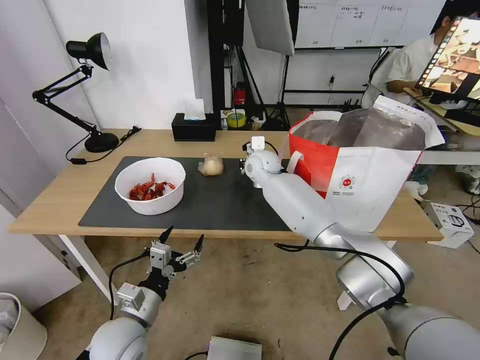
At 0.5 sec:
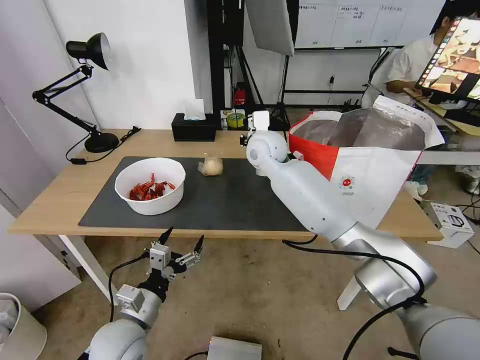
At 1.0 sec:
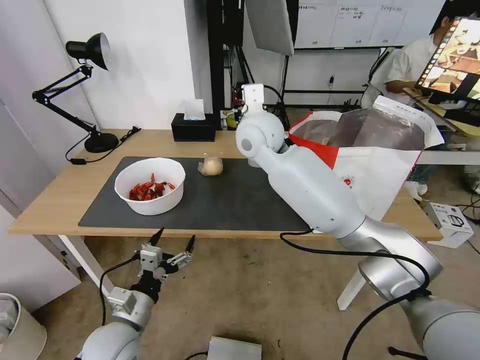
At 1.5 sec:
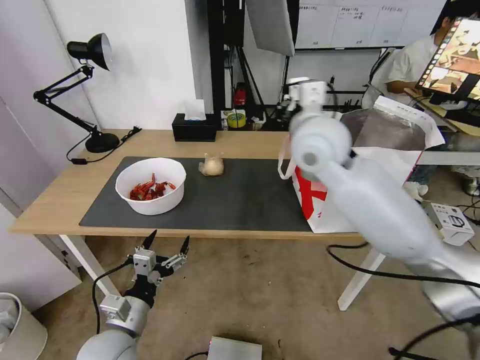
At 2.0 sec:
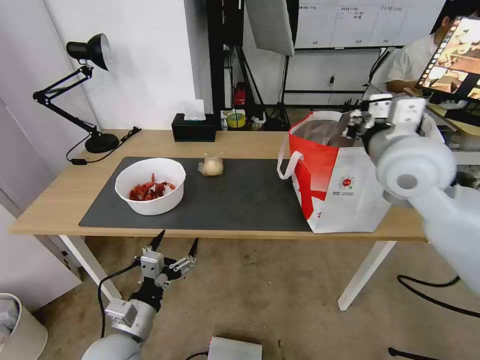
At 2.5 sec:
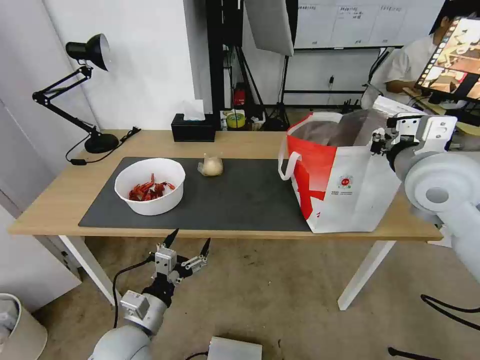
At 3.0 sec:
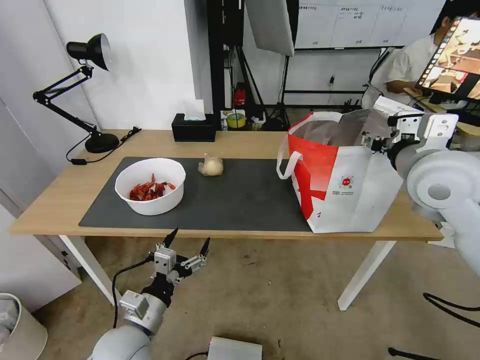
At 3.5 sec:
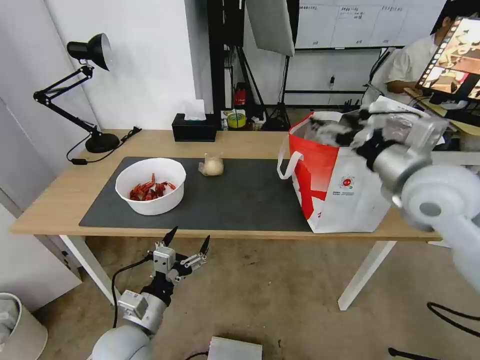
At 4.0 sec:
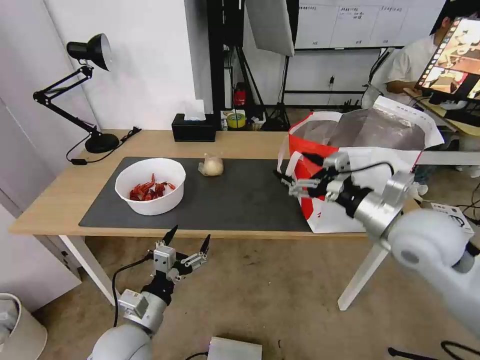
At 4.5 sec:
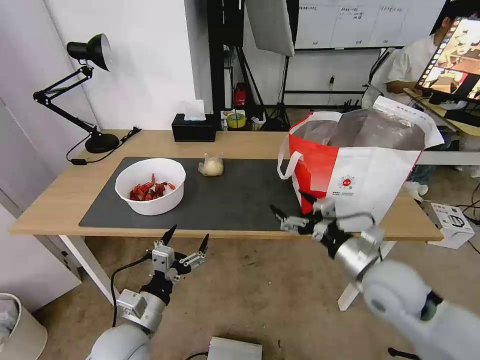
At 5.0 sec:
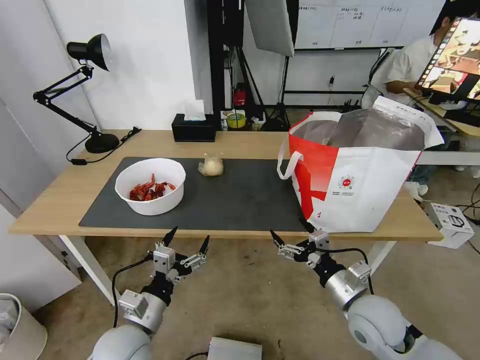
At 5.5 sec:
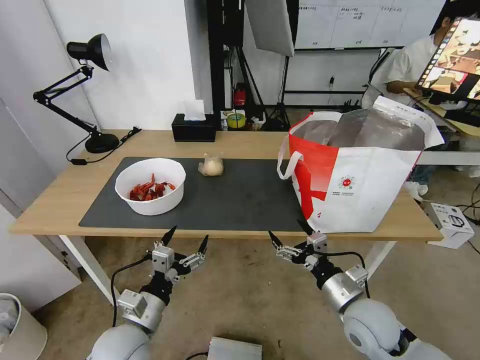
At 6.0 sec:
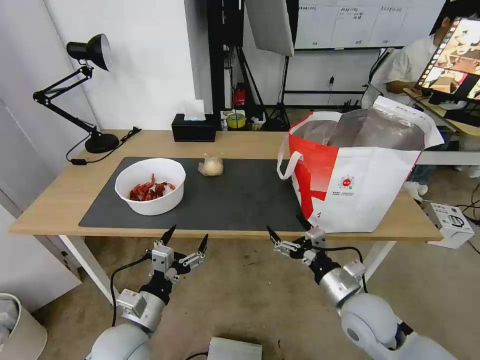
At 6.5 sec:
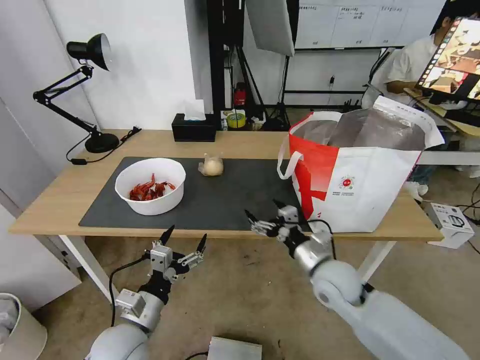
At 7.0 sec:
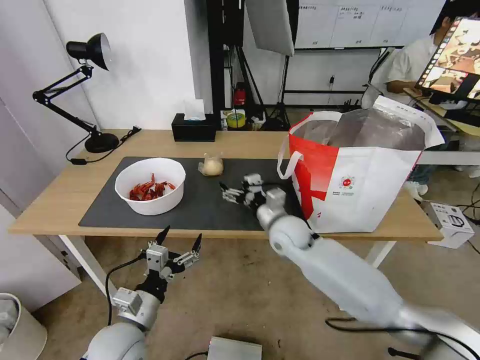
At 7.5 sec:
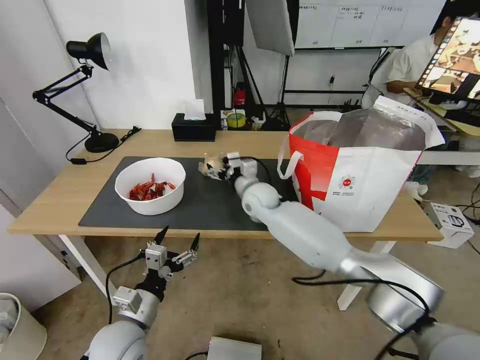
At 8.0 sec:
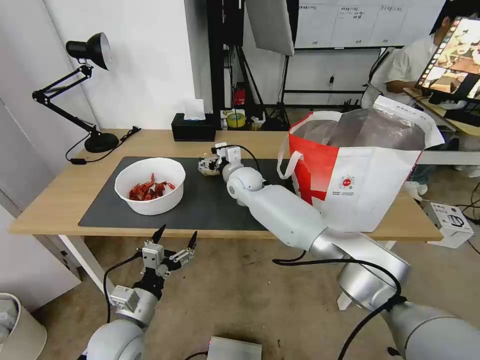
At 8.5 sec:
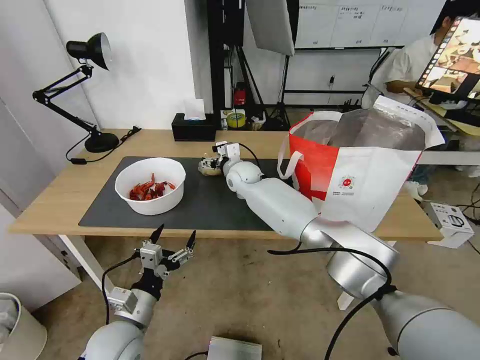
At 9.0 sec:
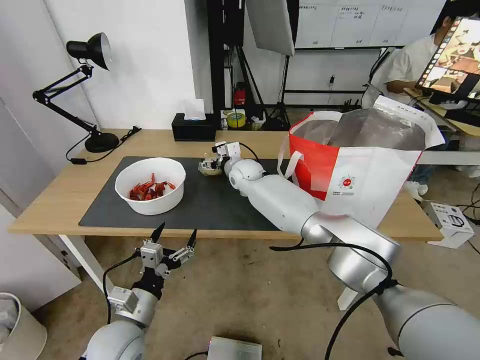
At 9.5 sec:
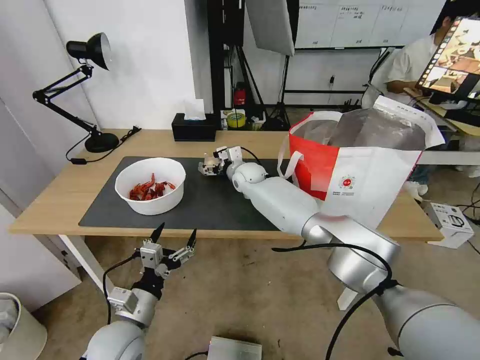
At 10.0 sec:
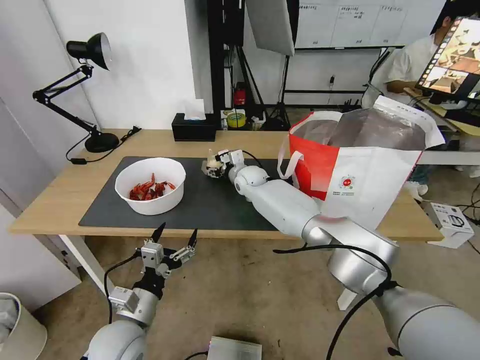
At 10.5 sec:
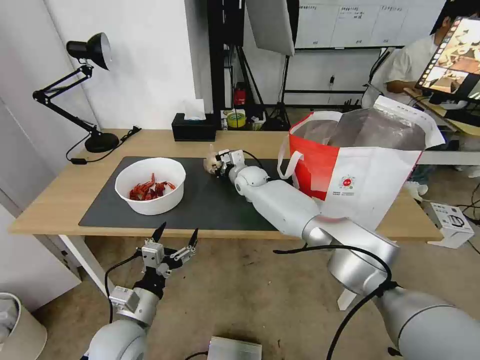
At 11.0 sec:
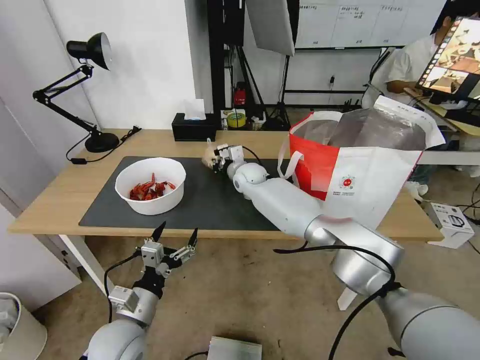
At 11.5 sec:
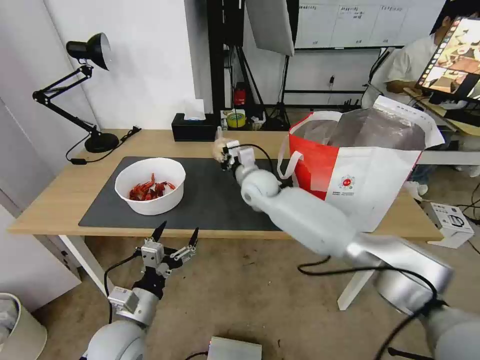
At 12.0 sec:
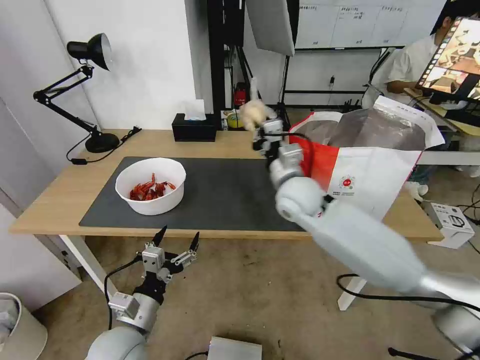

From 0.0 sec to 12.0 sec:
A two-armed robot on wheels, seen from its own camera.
Task of the whole recording: Pick up the trash from the table and place it into the takeout bag.
From 0.0 sec to 2.0 sec: The right gripper is displaced backward, to the right and upward by some 35 cm.
From 2.0 sec to 4.0 sec: The right gripper goes some 10 cm downward and backward, and opens up.
From 4.0 sec to 6.0 sec: The right gripper travels downward by approximately 20 cm.
From 6.0 sec to 8.0 sec: The right gripper travels forward and to the left by some 40 cm.
From 8.0 sec to 10.0 sec: The right gripper ends up roughly 5 cm from where it was.
From 10.0 sec to 12.0 sec: The right gripper shifts approximately 20 cm backward, upward and to the right, and closes up.

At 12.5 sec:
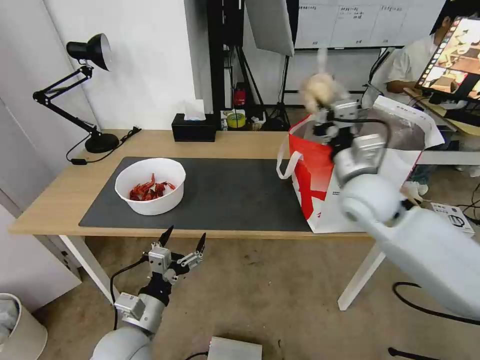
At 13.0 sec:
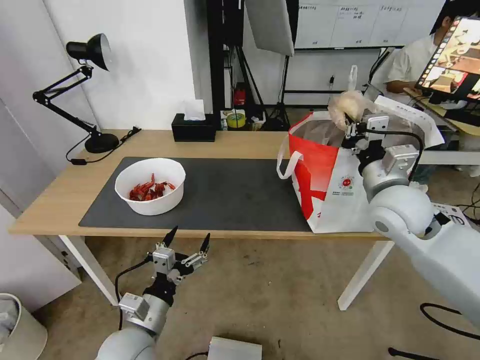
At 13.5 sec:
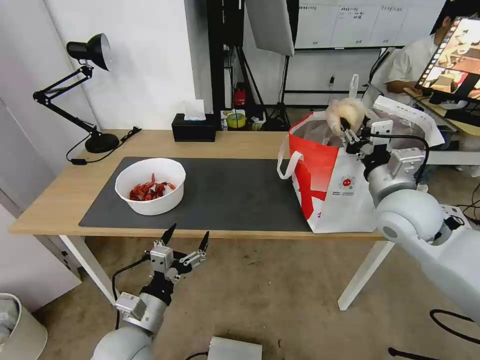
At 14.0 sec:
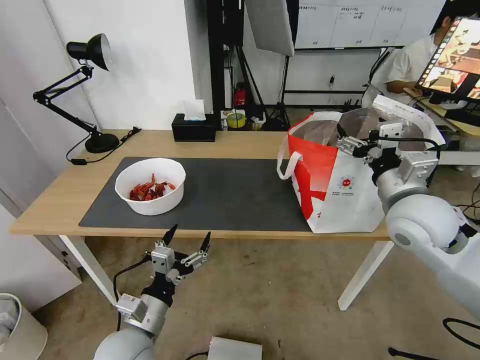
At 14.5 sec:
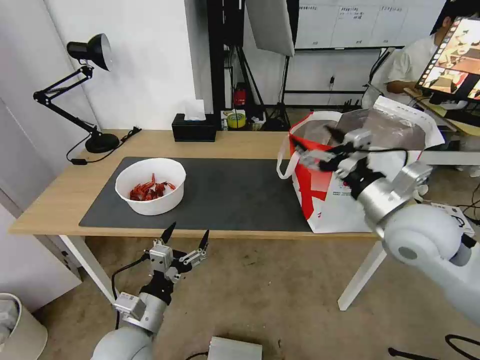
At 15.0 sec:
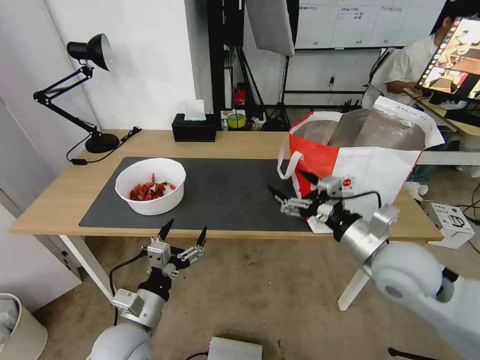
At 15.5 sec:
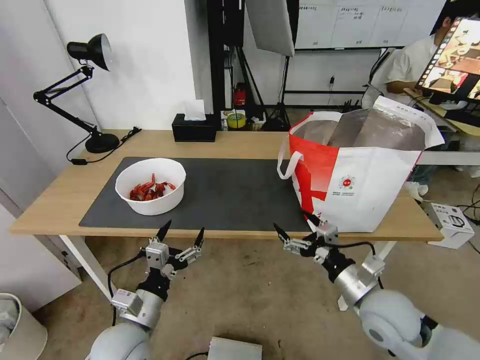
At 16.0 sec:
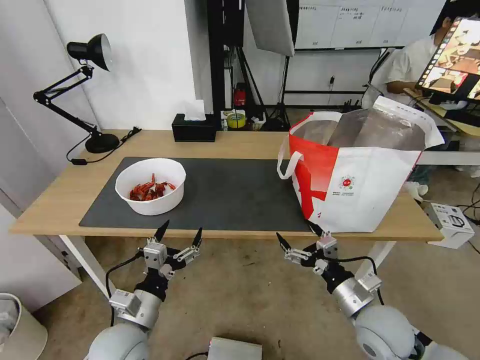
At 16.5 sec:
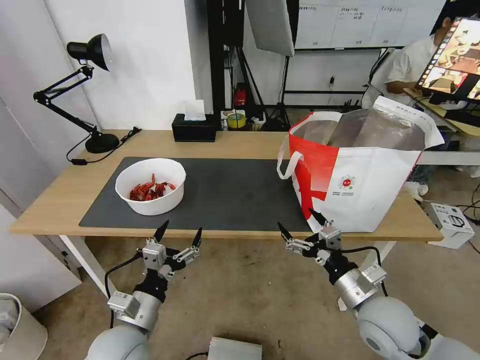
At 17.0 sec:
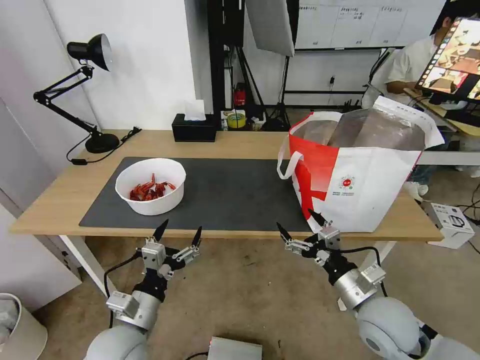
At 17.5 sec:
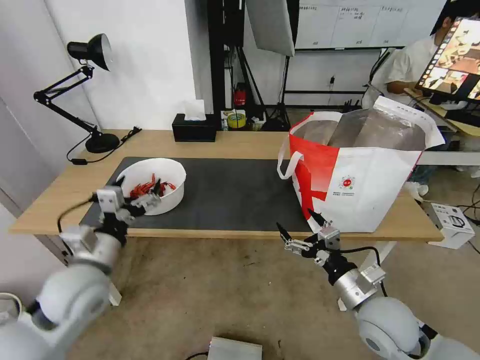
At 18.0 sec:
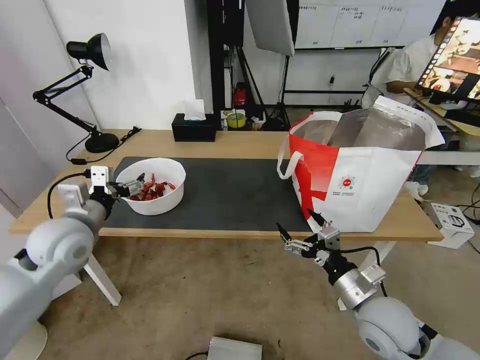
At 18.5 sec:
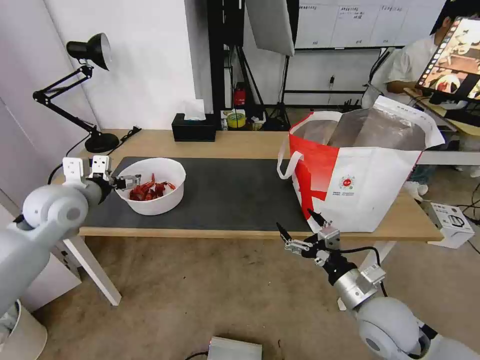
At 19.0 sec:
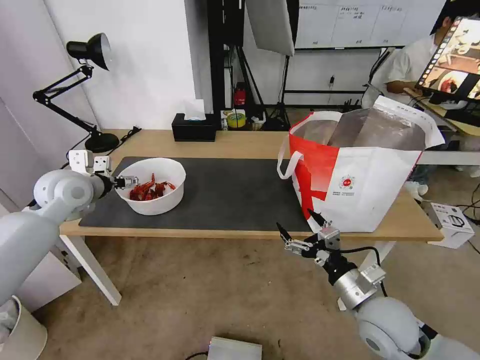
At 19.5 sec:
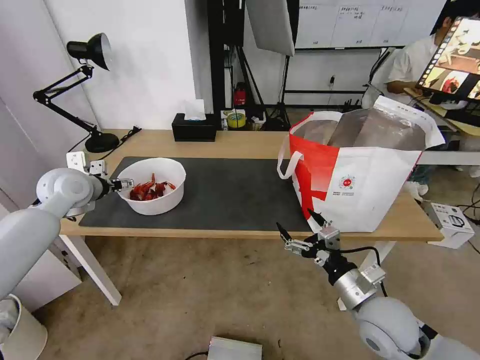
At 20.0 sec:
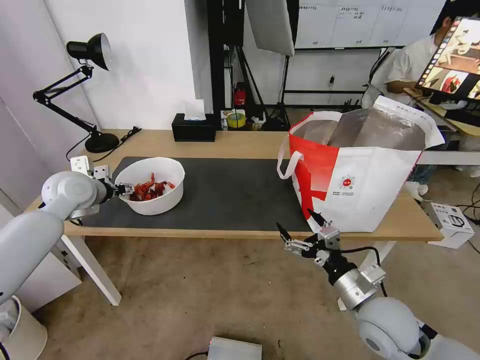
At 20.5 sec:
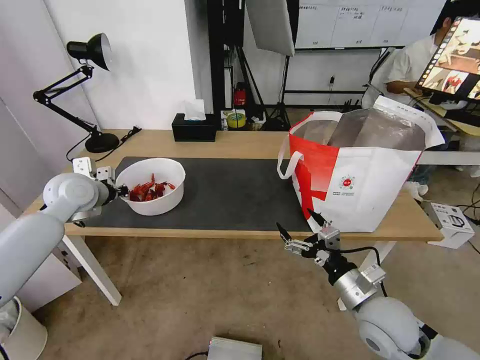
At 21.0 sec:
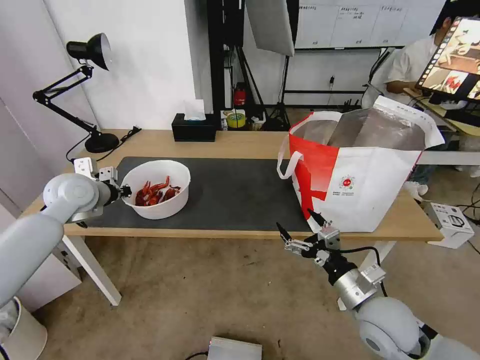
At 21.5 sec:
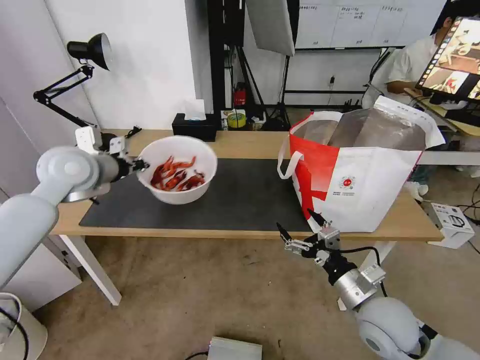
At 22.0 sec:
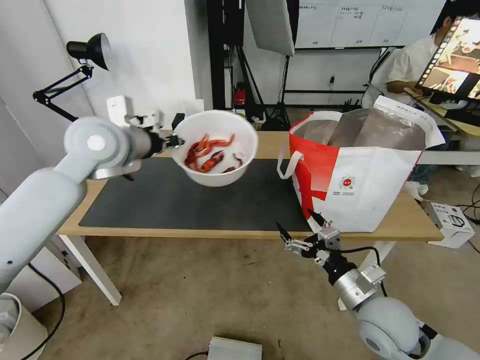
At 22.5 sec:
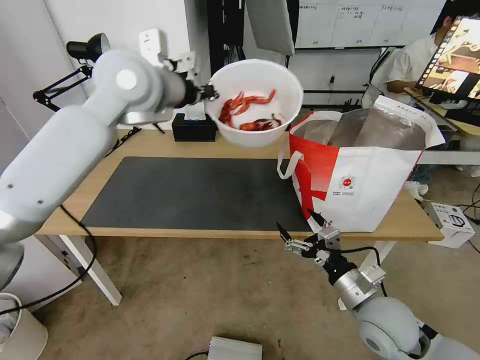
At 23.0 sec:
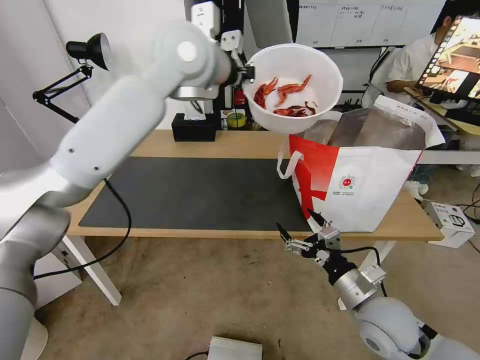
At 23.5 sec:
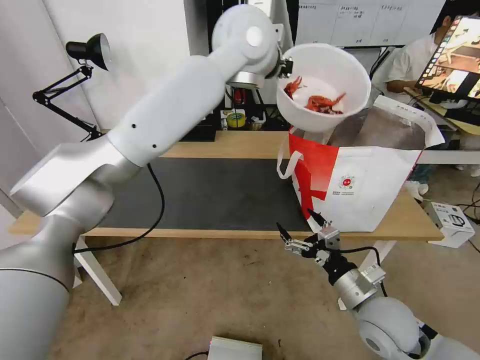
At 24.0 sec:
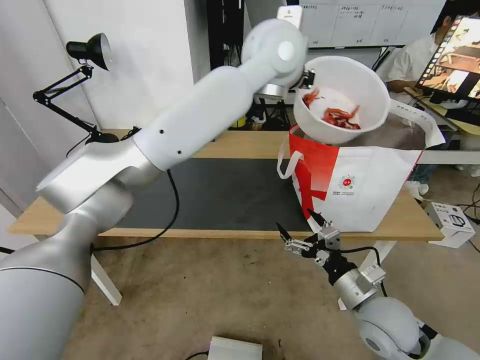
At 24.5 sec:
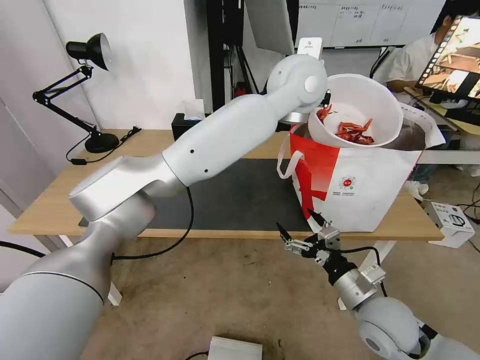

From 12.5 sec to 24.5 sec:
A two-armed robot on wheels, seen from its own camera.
Task of the whole recording: Pick up the trash from the table and place it into the takeout bag.
From 12.5 sec to 14.5 sec: The right gripper travels backward and to the right by some 10 cm, and opens up.
From 14.5 sec to 16.5 sec: The right gripper travels downward and backward by some 20 cm.
From 16.5 sec to 18.5 sec: The left gripper shifts some 30 cm forward, upward and to the left.
From 18.5 sec to 20.5 sec: The left gripper goes roughly 5 cm forward, and closes its fingers.
From 20.5 sec to 22.5 sec: The left gripper heads upward and to the right, covering about 30 cm.
From 22.5 sec to 24.5 sec: The left gripper heads to the right, covering roughly 25 cm.

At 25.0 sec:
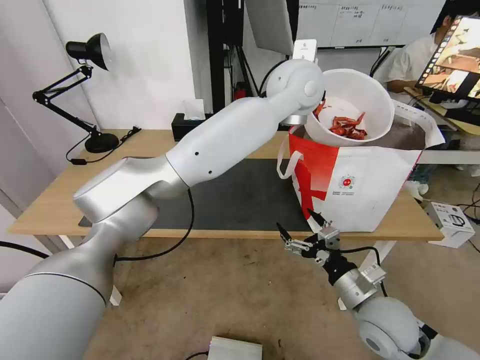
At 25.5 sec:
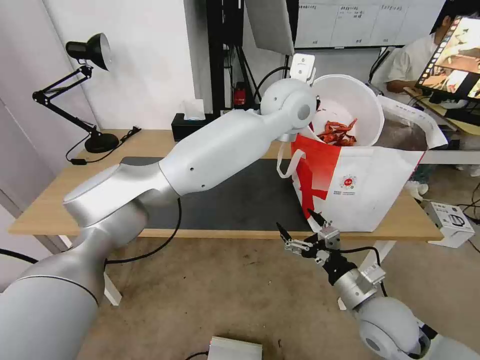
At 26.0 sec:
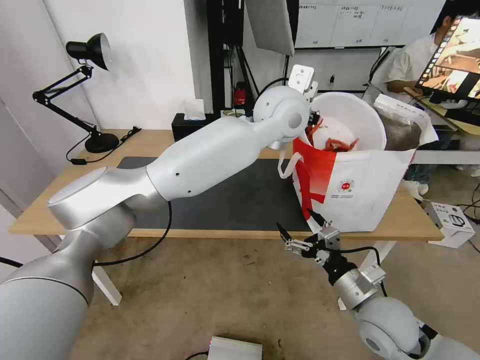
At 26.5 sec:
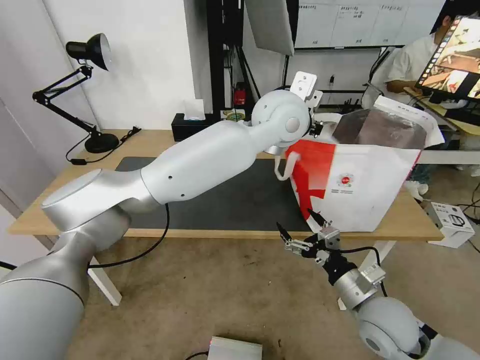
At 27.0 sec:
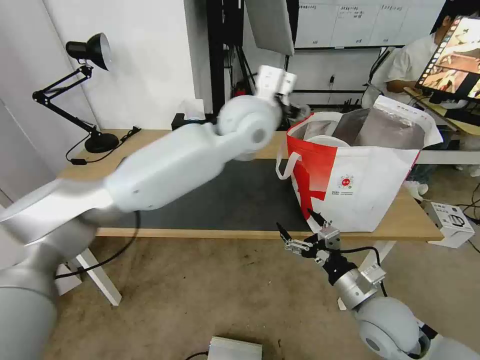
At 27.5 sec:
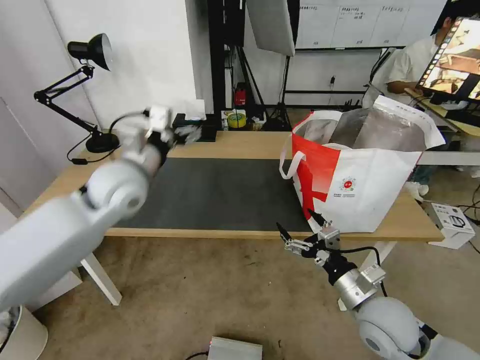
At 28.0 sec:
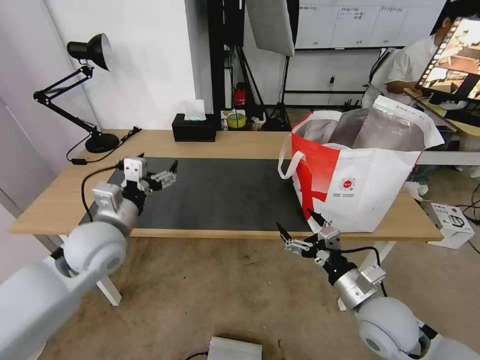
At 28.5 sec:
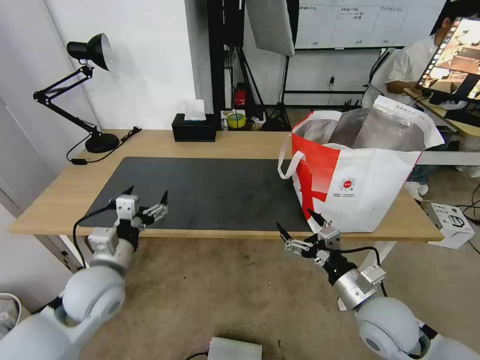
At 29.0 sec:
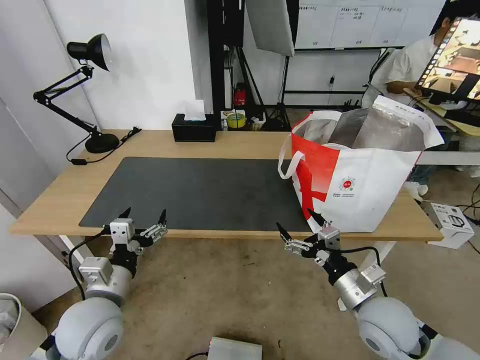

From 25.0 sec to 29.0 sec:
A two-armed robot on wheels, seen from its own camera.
Task of the whole recording: Pick up the trash from the table and place it into the takeout bag.
From 25.0 sec to 27.0 sec: The left gripper shifts some 10 cm to the left, and opens its fingers.
From 27.0 sec to 29.0 sec: The left gripper travels to the left, downward and backward by some 40 cm.
